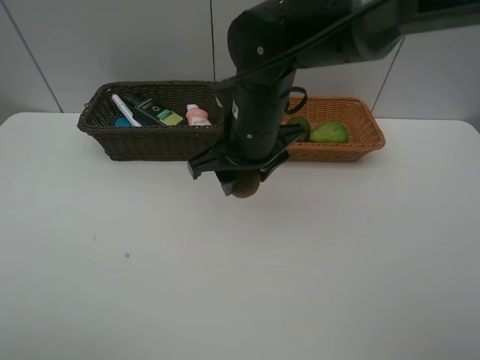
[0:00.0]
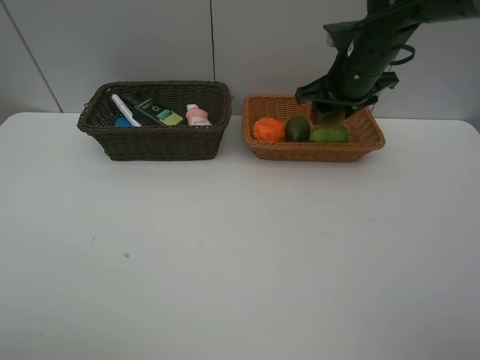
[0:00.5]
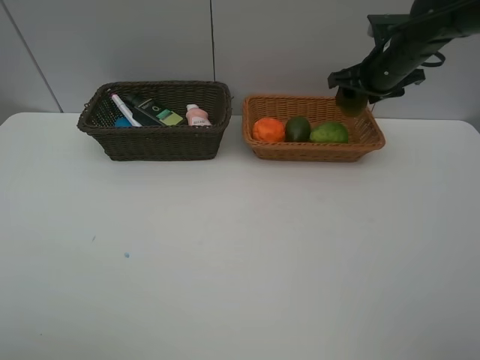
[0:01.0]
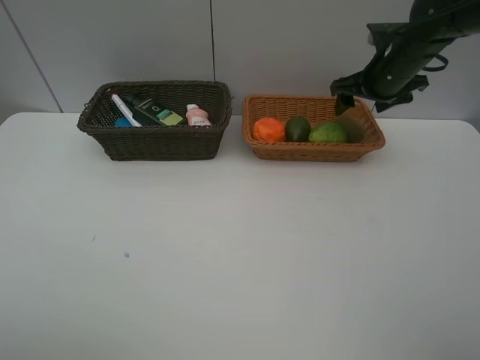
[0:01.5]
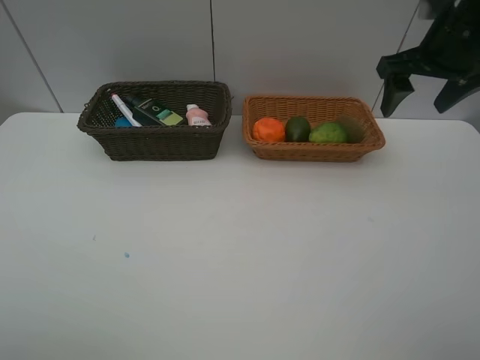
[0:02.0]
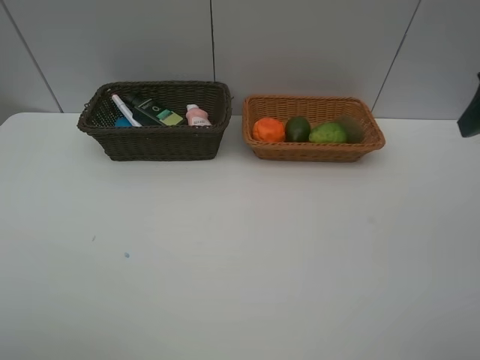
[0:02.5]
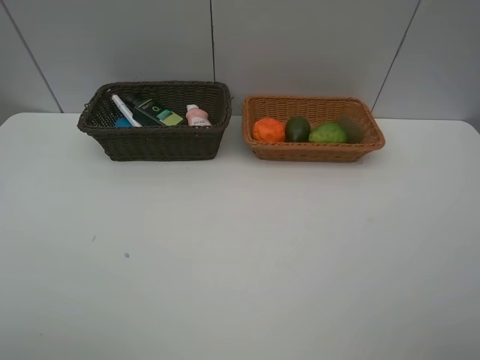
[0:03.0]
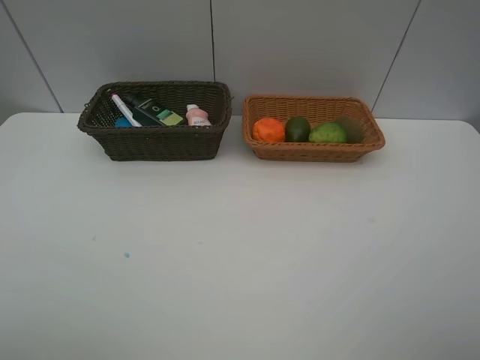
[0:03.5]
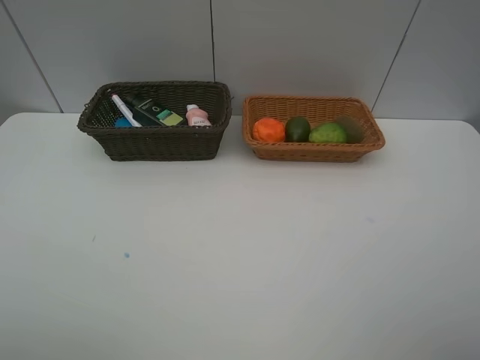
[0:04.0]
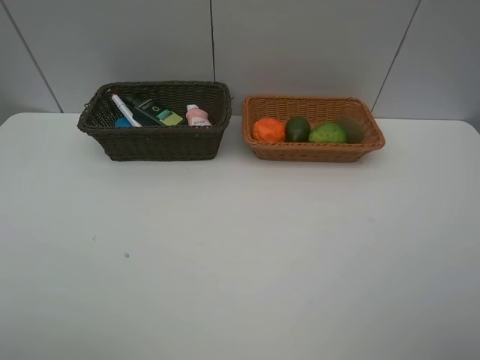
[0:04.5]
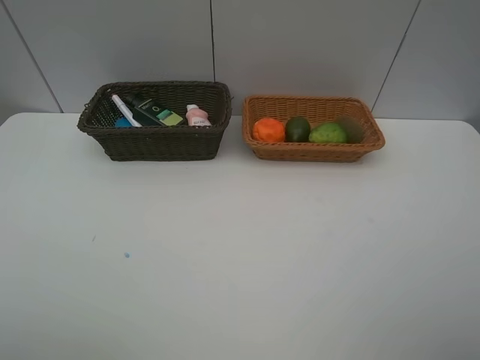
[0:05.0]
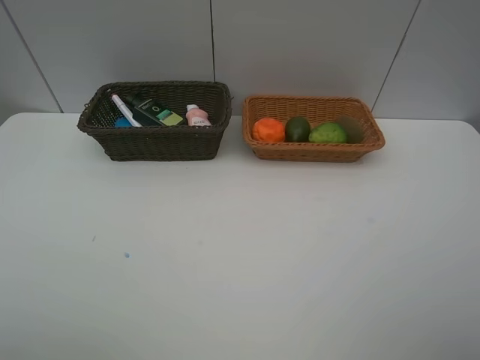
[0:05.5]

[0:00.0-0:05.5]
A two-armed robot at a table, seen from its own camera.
Task of the whole recording: Place multiple objects separately in different baskets.
Step, 0:00.0 to 0:01.0: Place the kiwi in the light basket with right gripper.
0:00.0 to 0:02.0: The right gripper is displaced to the right and upward by approximately 25 cm, and opens up.
0:02.0 to 0:03.5: The right gripper travels backward by some 35 cm.

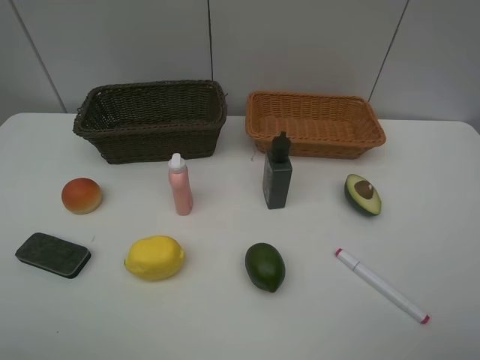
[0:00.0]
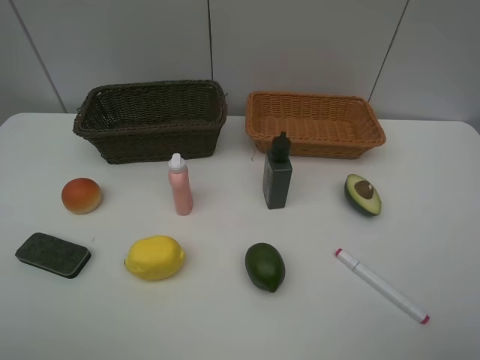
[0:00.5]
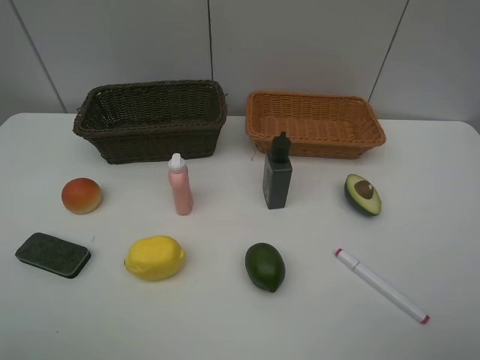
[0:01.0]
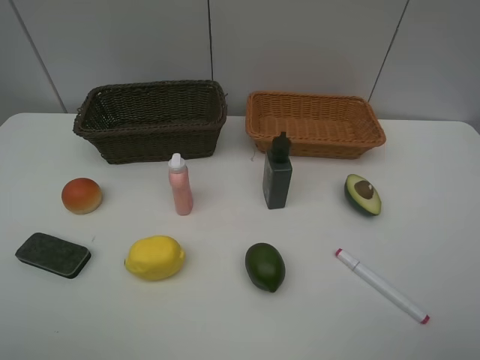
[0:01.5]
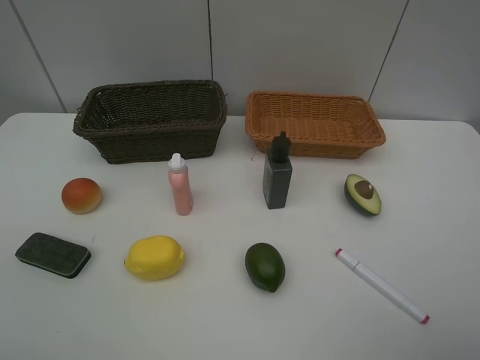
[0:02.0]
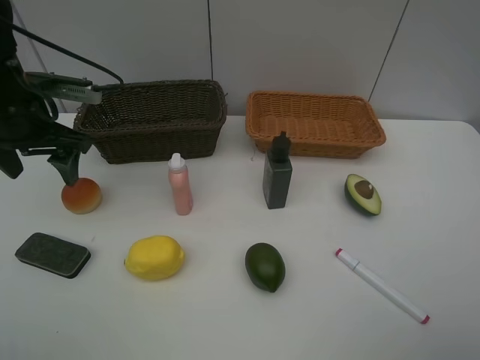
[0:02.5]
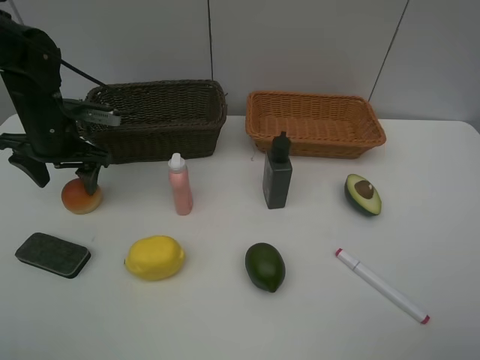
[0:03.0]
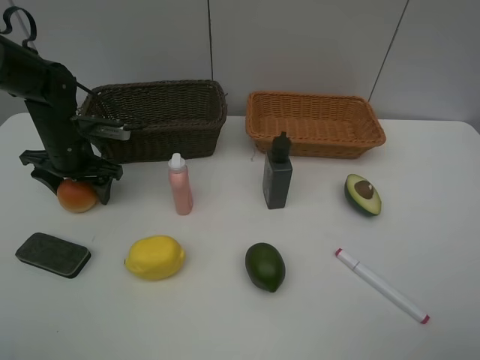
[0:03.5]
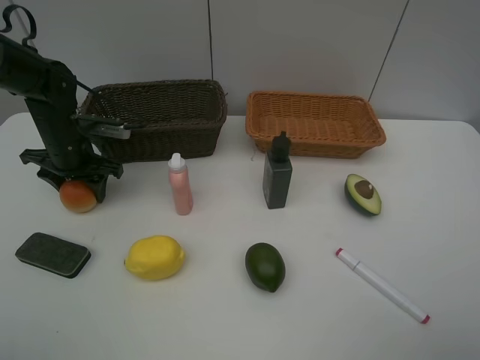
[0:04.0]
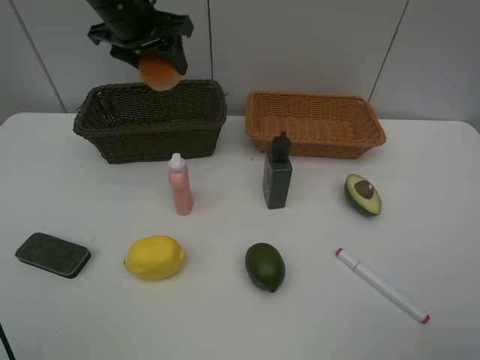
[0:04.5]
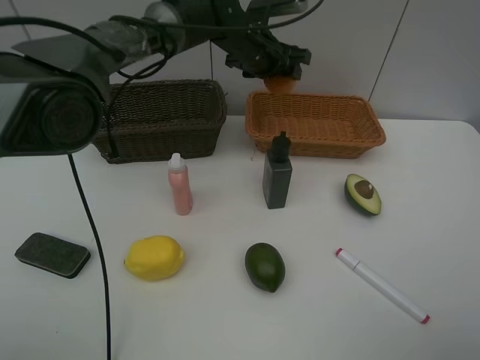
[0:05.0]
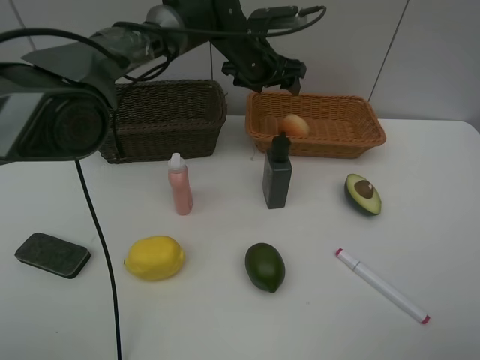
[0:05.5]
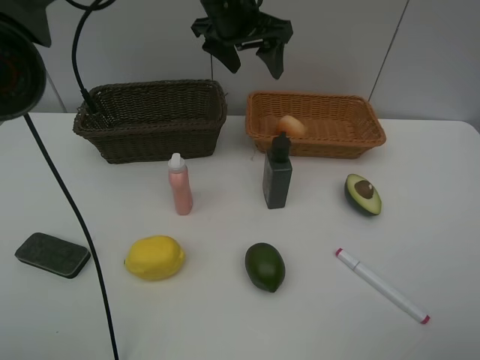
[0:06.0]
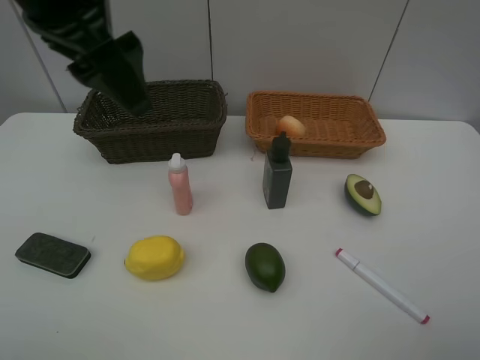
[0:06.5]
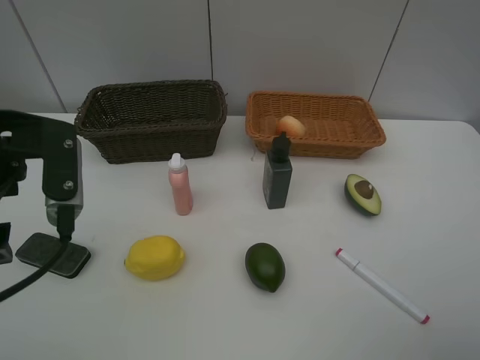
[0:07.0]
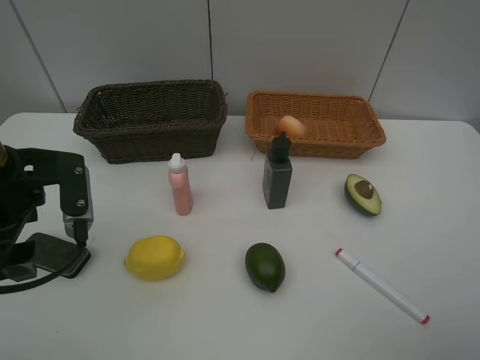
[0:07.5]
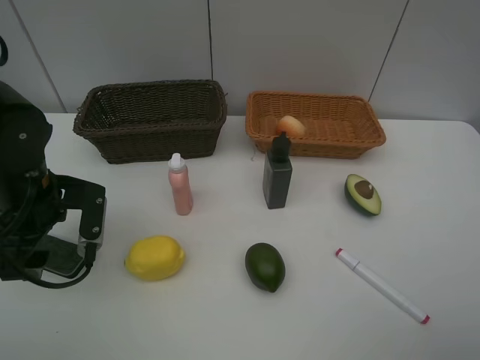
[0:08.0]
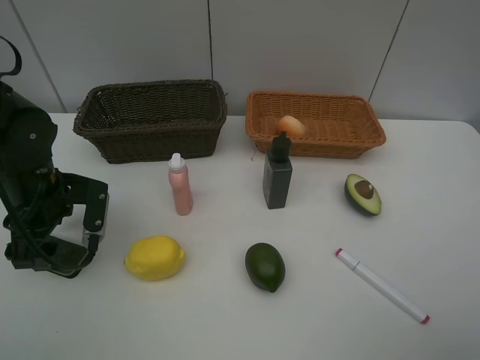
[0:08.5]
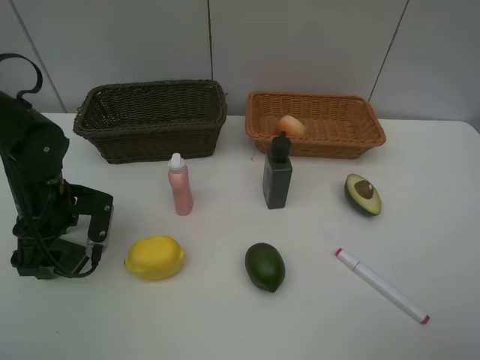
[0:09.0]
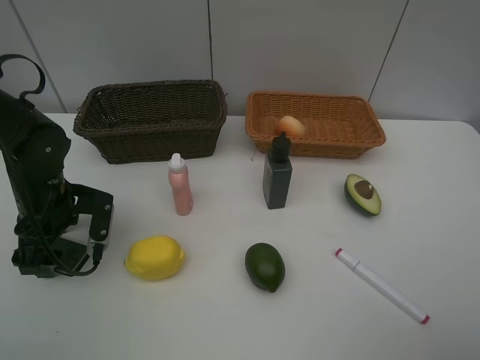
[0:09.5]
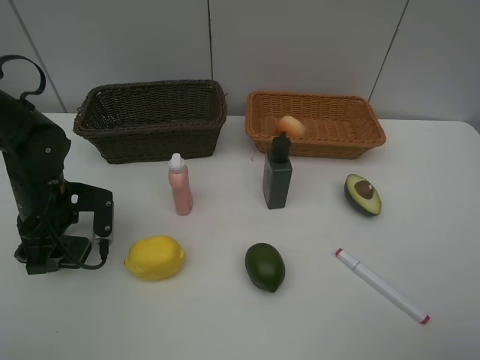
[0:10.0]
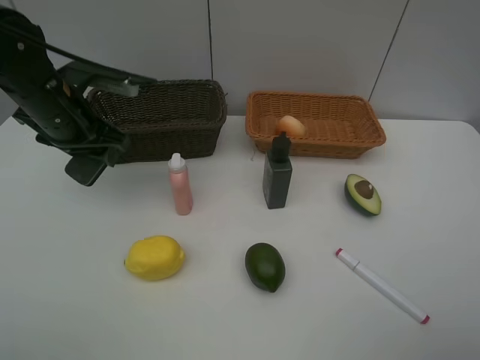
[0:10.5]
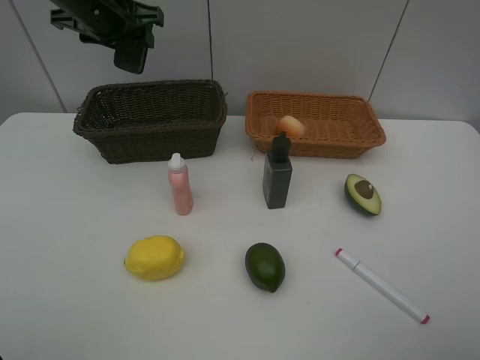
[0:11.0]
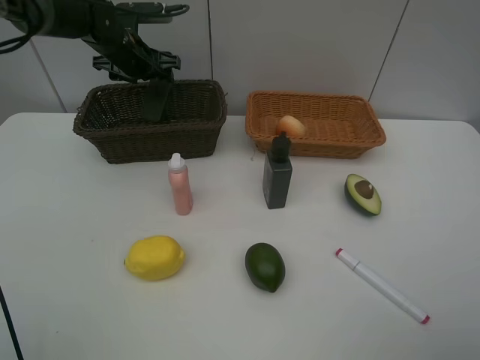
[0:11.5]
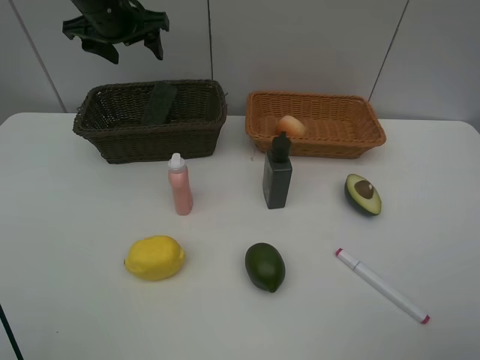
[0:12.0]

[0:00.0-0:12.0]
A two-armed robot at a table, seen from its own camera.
Task of the whole recording: Place multiple objects separately in different baskets.
Step, 0:00.0 to 0:04.0: Pick up egg yolk pastry with left gripper.
Step, 0:04.5 to 0:05.0: Place the egg yolk pastry in the light basket with left gripper.
Step, 0:05.5 to 0:10.0: Pick up blackboard eraser with left gripper.
Step, 0:10.5 to 0:11.5: Place the blackboard eraser in the dark basket with left gripper.
0:02.0 to 0:04.0: The left gripper shifts roughly 30 cm forward and downward, and closes up.
0:04.0 to 0:06.0: The left gripper is displaced to the right and upward by approximately 30 cm, and opens.
0:06.0 to 0:08.0: The left gripper is displaced to the left, backward and downward by roughly 35 cm.
0:08.0 to 0:10.0: The left gripper moves some 5 cm, and closes up.
0:10.0 to 0:12.0: The left gripper goes approximately 30 cm upward and forward, and opens its fingers.

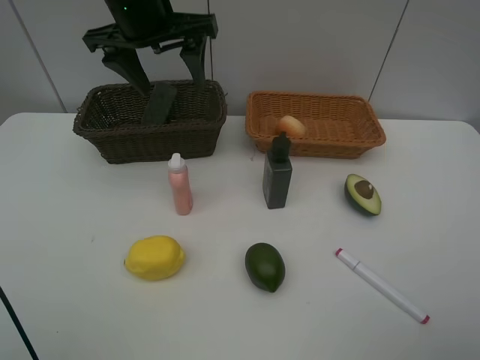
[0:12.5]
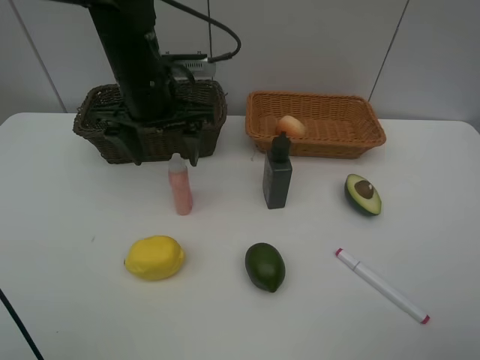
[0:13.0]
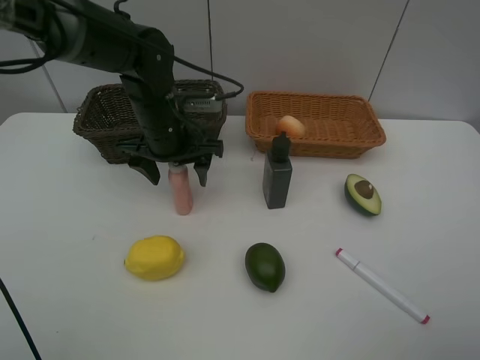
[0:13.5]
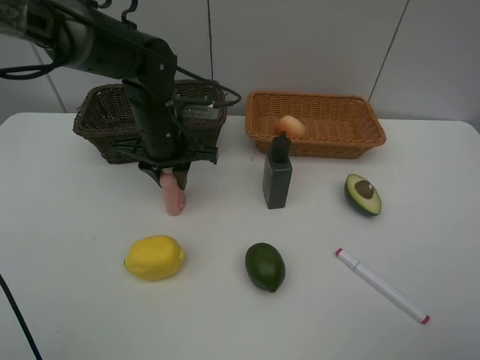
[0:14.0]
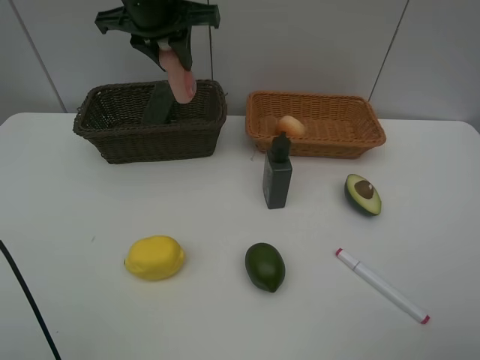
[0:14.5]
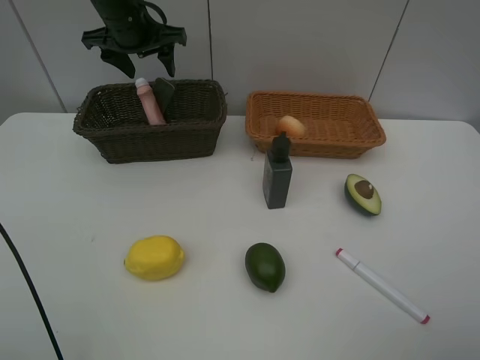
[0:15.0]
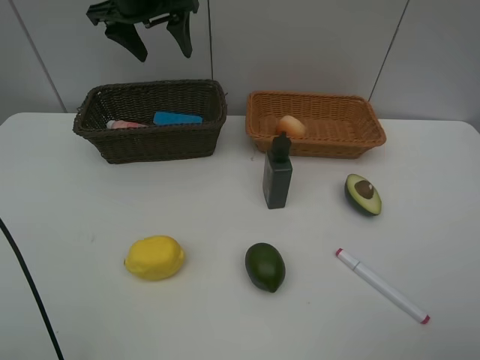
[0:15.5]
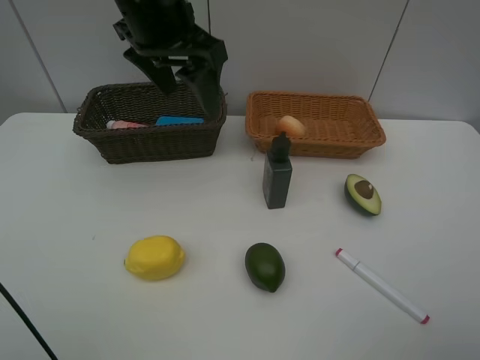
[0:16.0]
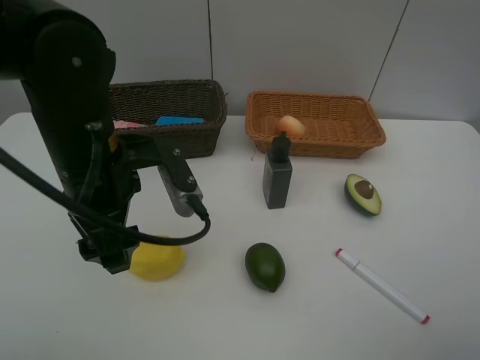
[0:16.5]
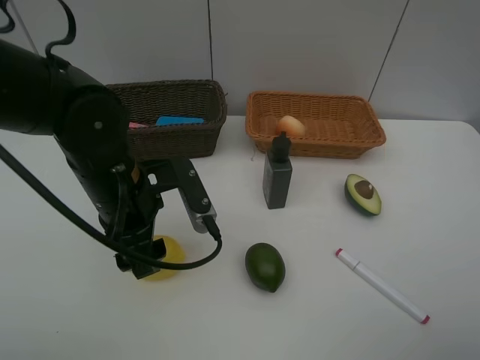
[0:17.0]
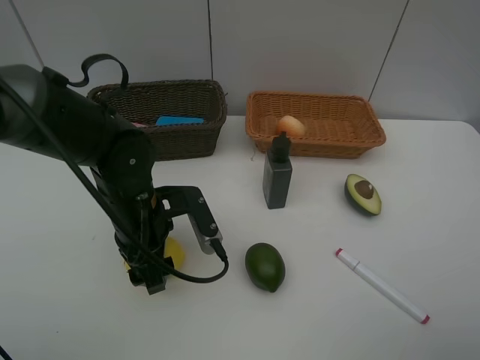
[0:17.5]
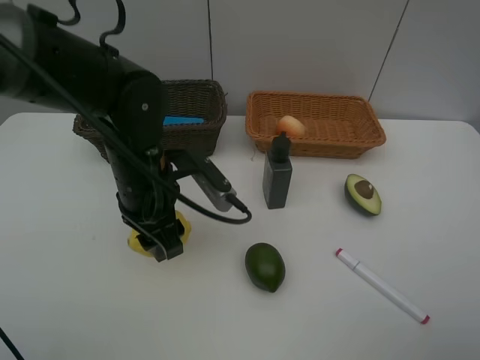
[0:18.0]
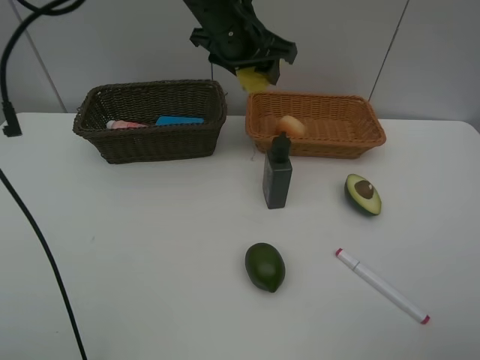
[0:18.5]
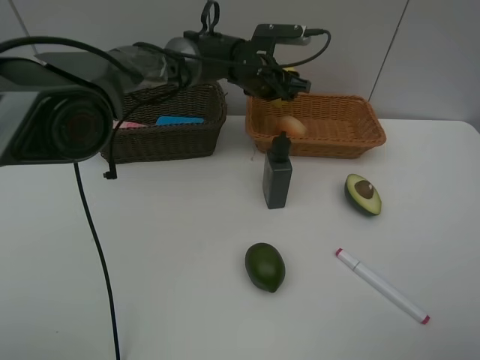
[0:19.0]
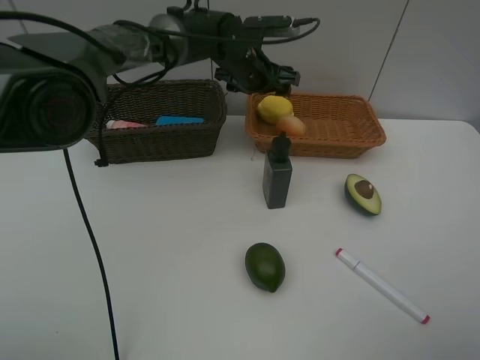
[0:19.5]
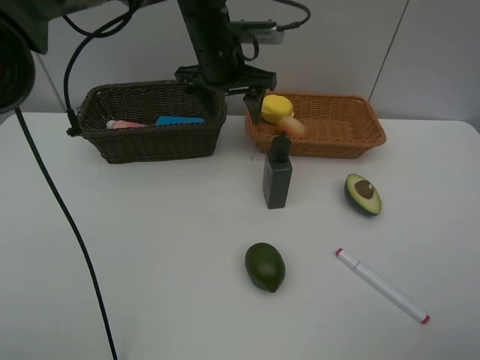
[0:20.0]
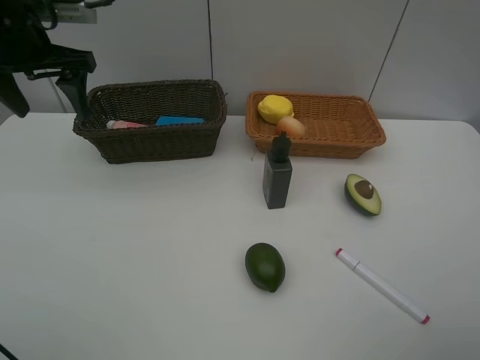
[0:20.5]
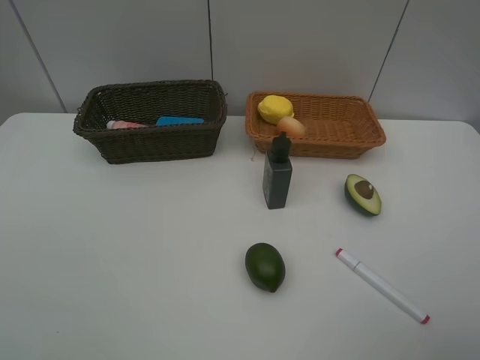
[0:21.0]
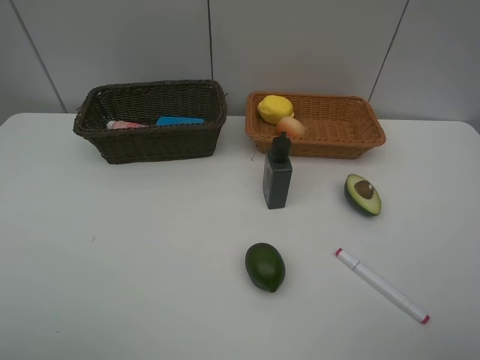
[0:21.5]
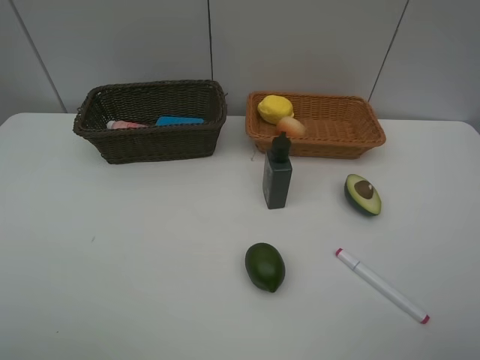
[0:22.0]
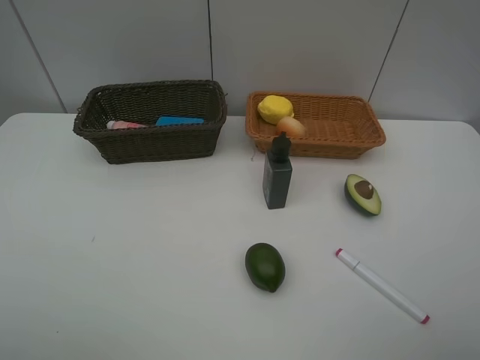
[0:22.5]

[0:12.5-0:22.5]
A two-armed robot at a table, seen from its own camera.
Task of the whole recording: Place multiple objects separately in different baskets.
Step, 0:12.5 to 0:14.0: Pick up the laundry detergent with left gripper.
Step, 0:14.5 to 0:15.0: Place the laundry detergent in the dark basket with left gripper.
Step, 0:15.5 to 0:18.0: Pick up the lemon with left gripper.
Step, 0:18.5 to 0:19.0: Place the lemon in the light basket with left gripper.
0:12.5 to 0:14.5: The left gripper moves forward, some 5 cm, reaches approximately 15 cm downward, then returns, and closes up.
0:14.5 to 0:16.5: The left gripper goes about 25 cm backward and downward, and opens its fingers.
0:16.5 to 0:18.5: The left gripper shifts about 25 cm forward and to the right, and closes.
0:18.5 to 0:20.5: The left gripper heads to the left, covering some 25 cm, and opens up.
0:20.5 to 0:22.5: The left gripper moves backward, approximately 35 cm.
